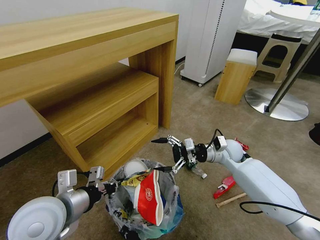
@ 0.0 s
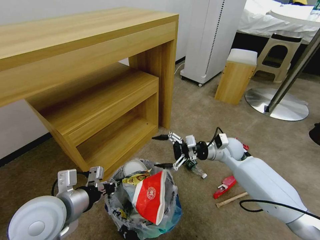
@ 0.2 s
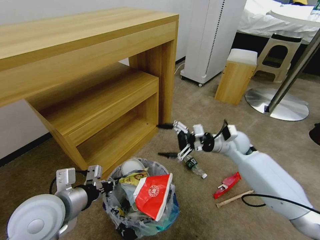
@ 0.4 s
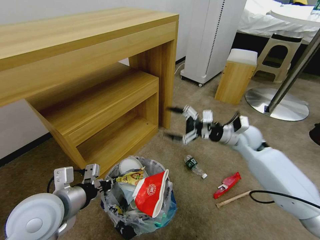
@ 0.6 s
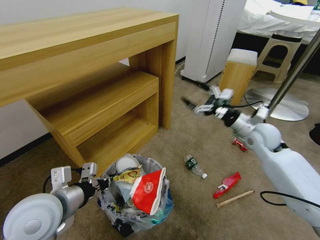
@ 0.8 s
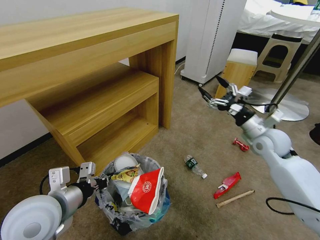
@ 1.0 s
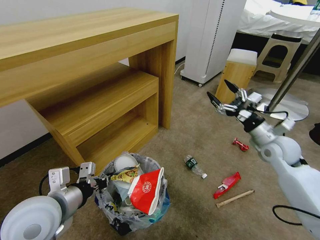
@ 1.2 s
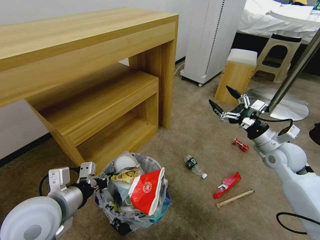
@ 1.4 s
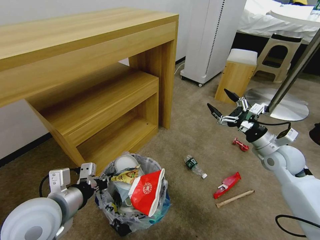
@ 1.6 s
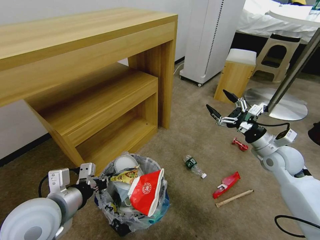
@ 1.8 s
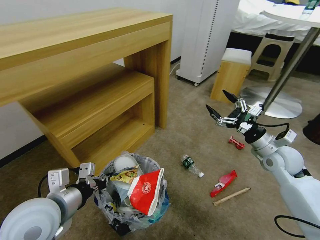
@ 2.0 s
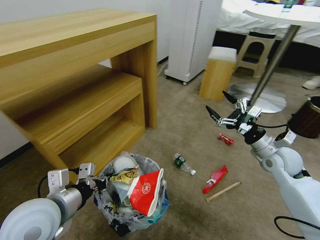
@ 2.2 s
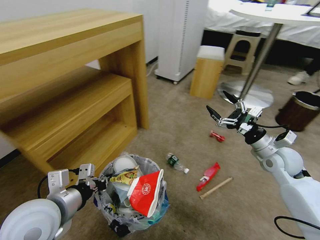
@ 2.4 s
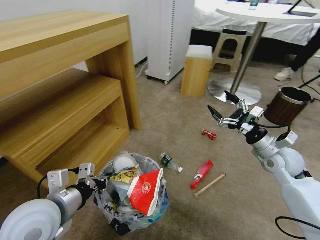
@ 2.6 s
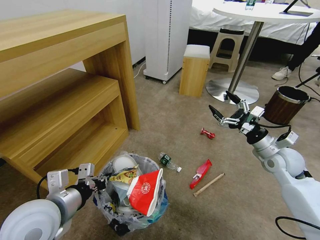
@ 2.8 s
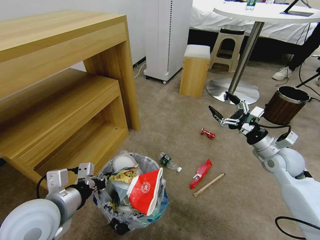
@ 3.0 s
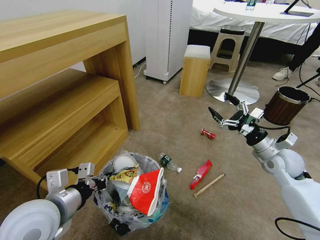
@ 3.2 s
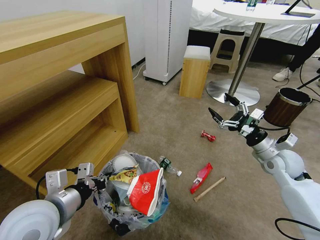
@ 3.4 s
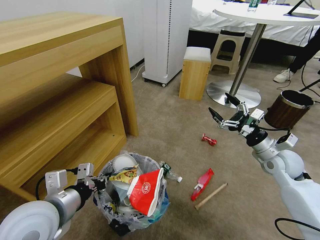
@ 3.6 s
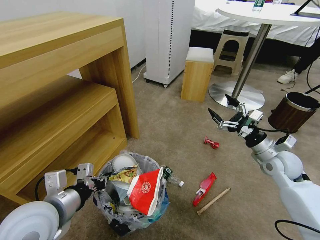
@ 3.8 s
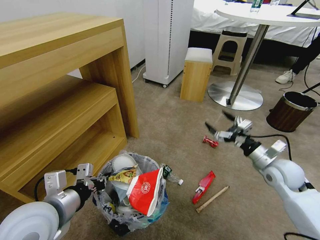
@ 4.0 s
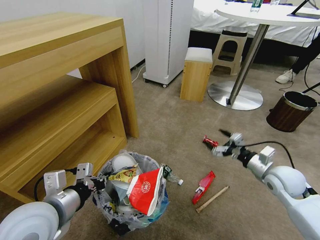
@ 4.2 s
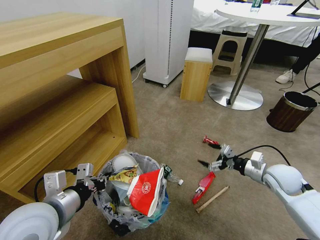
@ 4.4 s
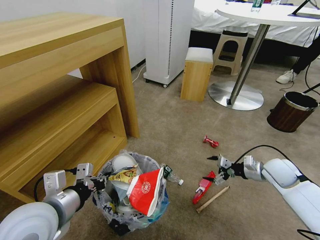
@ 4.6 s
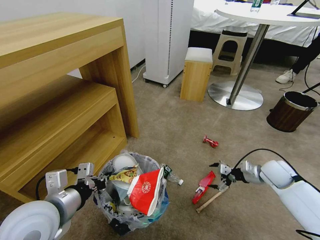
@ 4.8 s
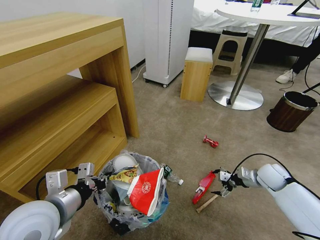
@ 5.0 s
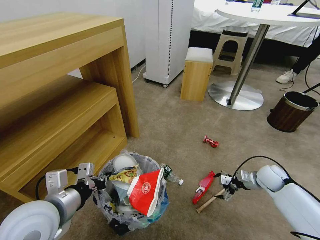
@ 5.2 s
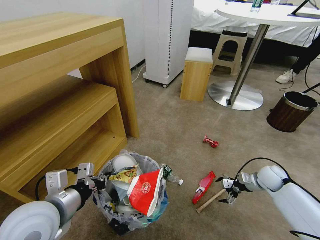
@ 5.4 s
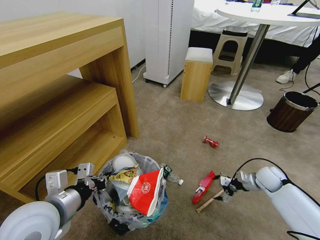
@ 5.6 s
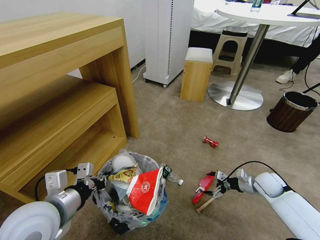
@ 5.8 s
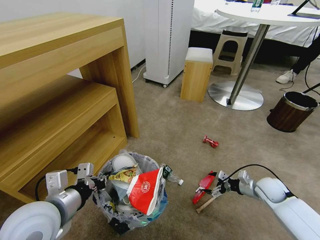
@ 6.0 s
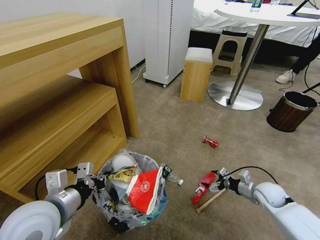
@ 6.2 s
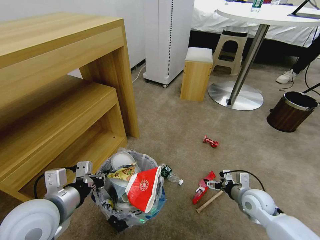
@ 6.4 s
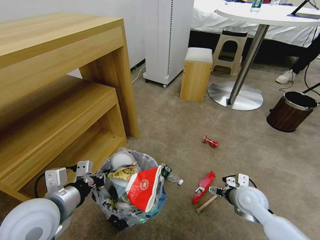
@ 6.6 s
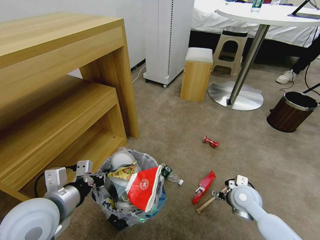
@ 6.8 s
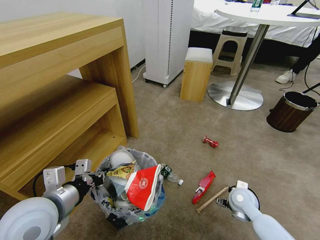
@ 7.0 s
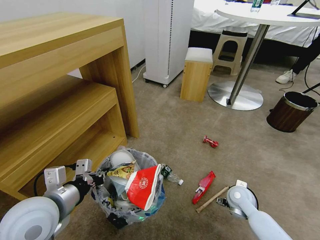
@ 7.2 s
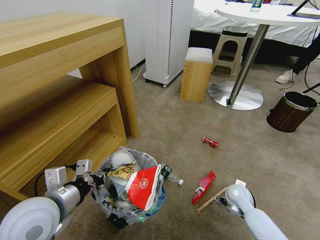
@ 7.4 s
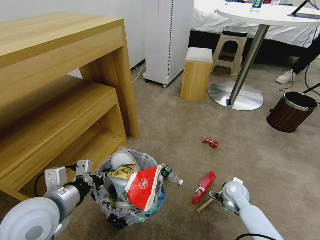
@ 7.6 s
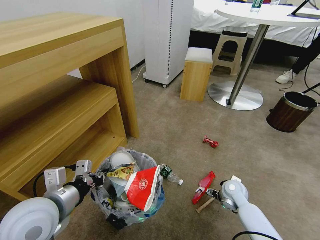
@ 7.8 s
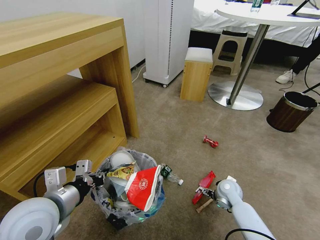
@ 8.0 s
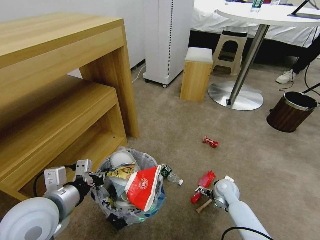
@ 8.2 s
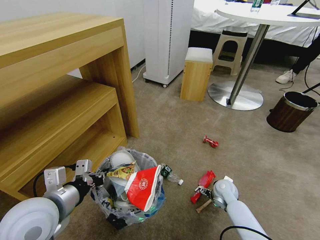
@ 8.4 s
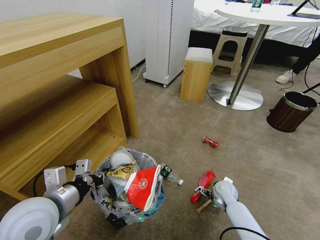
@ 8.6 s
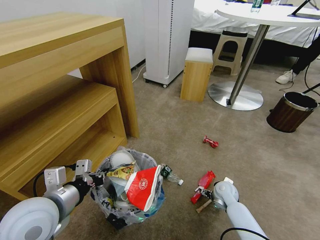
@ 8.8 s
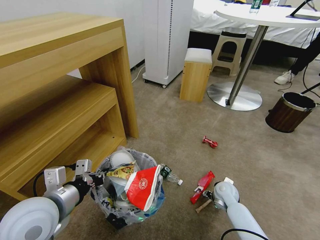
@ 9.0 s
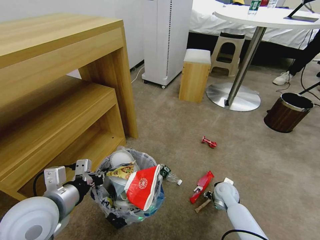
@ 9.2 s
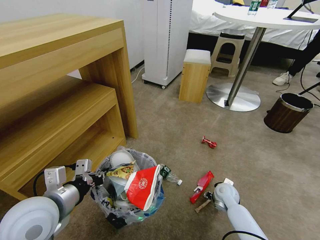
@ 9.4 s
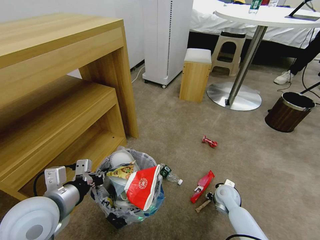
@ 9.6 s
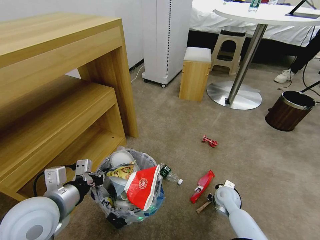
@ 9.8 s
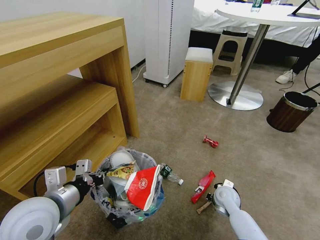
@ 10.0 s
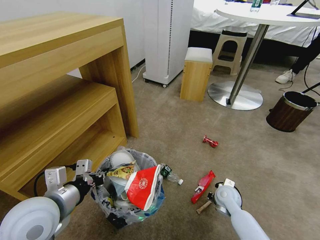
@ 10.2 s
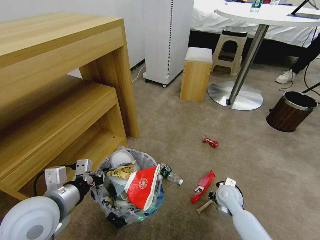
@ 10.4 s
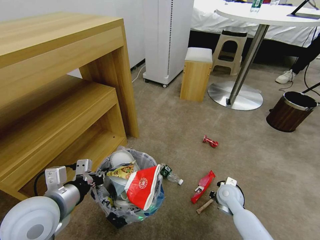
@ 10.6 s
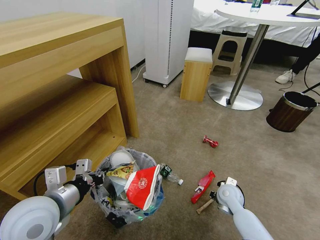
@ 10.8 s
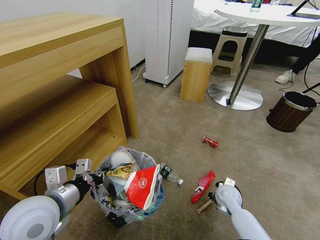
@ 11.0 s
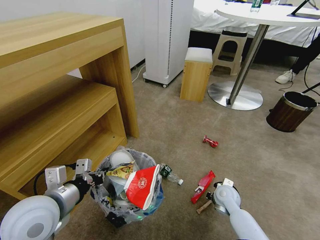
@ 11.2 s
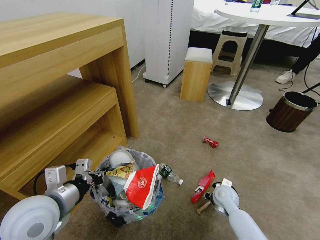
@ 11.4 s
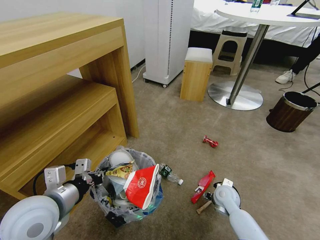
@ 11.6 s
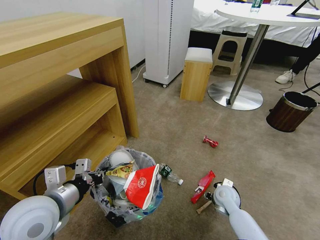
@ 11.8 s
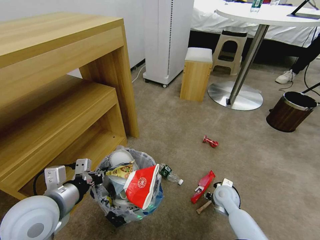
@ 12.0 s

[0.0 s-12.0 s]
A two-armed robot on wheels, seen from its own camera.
Task of the whole recording: Pick up the trash bin and place the garbage on the floor into it.
0.0 to 1.6 s: The right gripper moves to the right, backward and upward, roughly 15 cm.
3.0 to 4.4 s: The right gripper heads downward, covering about 5 cm.
4.4 to 6.0 s: The right gripper travels downward by about 10 cm.
6.0 to 7.6 s: The right gripper is displaced to the left by roughly 15 cm.
7.6 to 9.0 s: The grippers move only a little.
9.0 to 10.4 s: The right gripper closes up.
10.4 to 12.0 s: The right gripper opens.

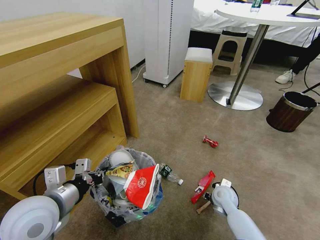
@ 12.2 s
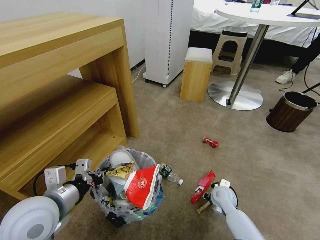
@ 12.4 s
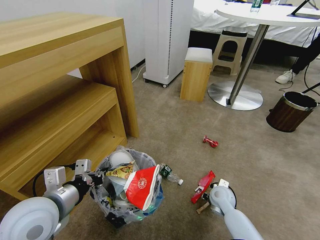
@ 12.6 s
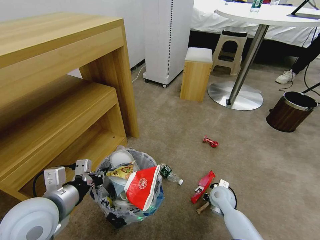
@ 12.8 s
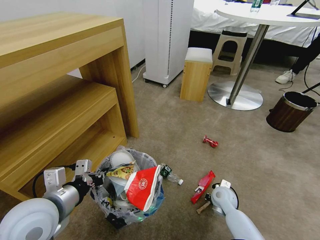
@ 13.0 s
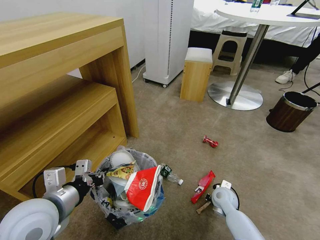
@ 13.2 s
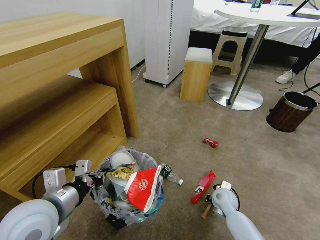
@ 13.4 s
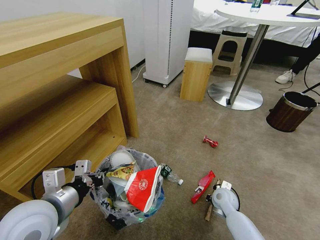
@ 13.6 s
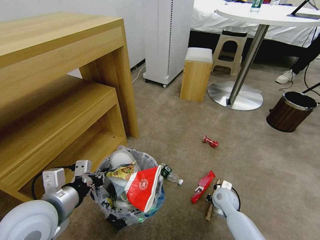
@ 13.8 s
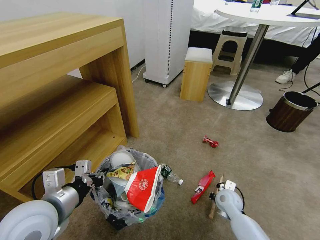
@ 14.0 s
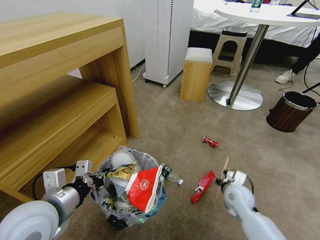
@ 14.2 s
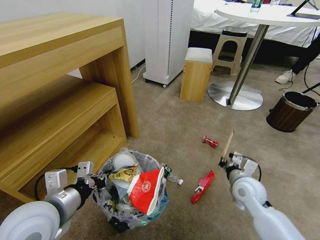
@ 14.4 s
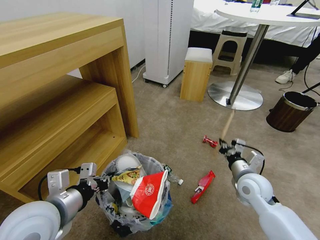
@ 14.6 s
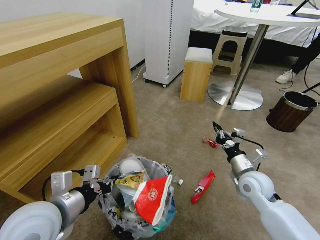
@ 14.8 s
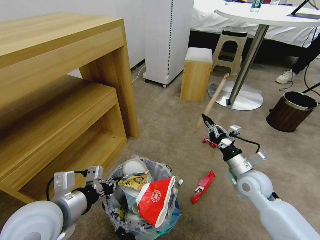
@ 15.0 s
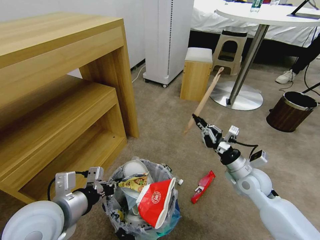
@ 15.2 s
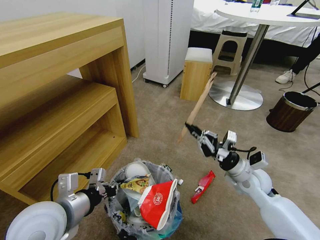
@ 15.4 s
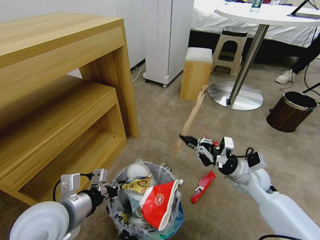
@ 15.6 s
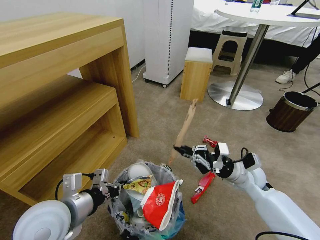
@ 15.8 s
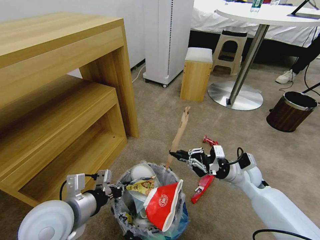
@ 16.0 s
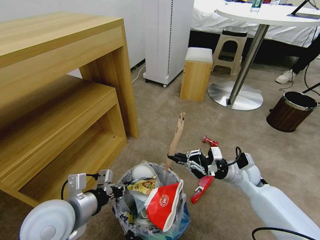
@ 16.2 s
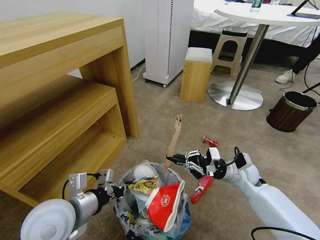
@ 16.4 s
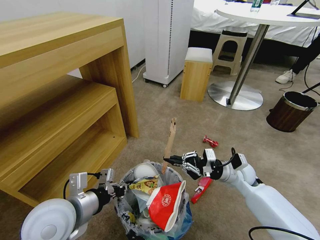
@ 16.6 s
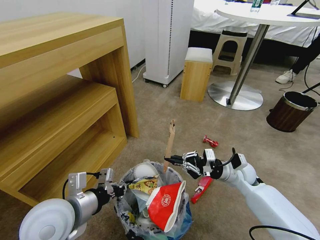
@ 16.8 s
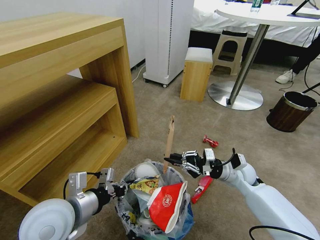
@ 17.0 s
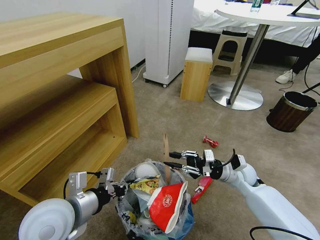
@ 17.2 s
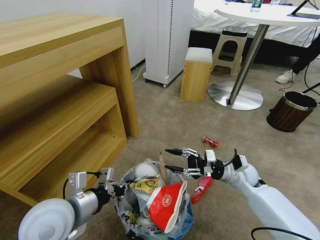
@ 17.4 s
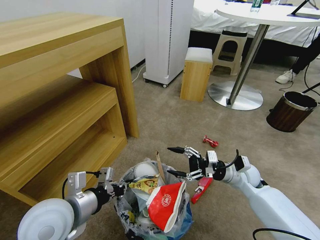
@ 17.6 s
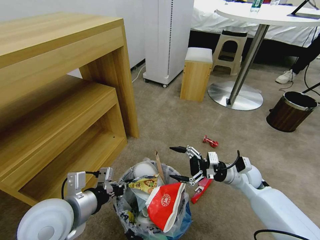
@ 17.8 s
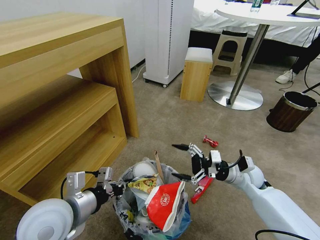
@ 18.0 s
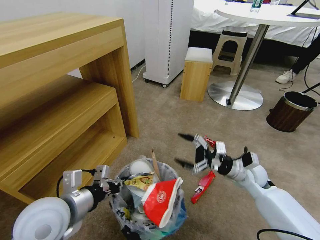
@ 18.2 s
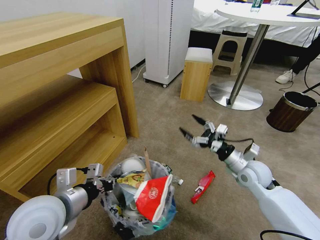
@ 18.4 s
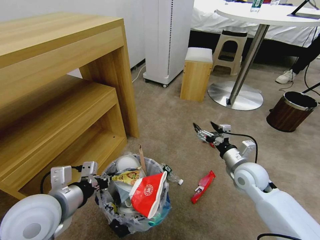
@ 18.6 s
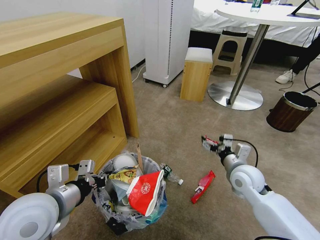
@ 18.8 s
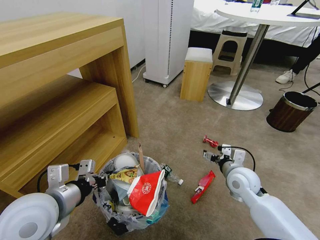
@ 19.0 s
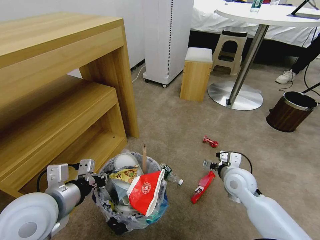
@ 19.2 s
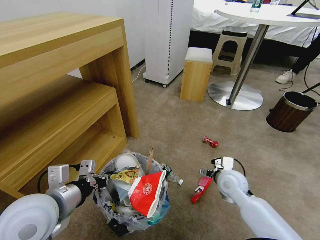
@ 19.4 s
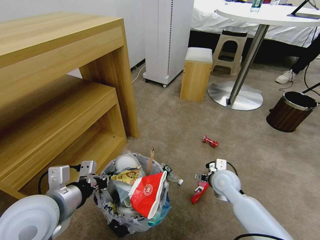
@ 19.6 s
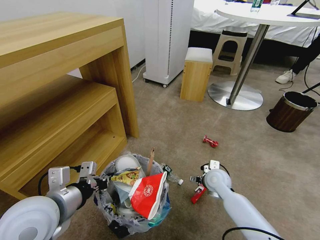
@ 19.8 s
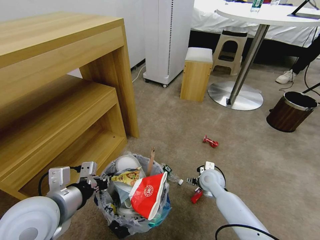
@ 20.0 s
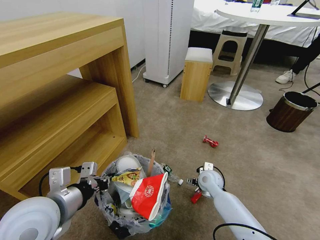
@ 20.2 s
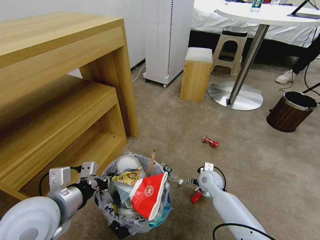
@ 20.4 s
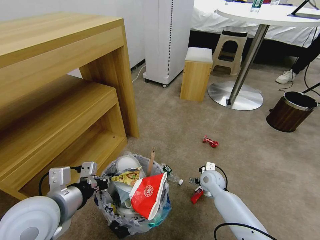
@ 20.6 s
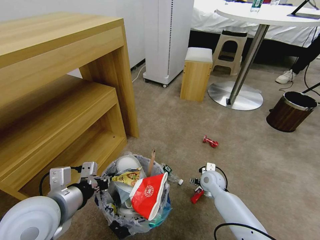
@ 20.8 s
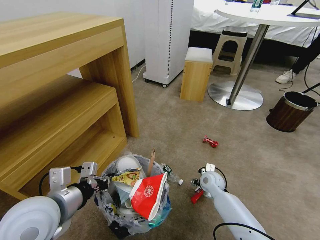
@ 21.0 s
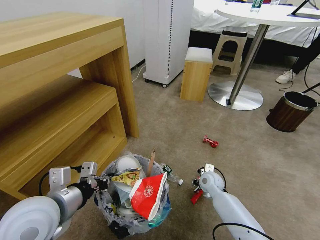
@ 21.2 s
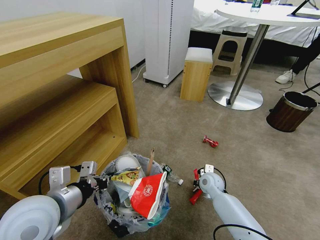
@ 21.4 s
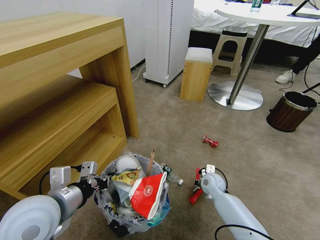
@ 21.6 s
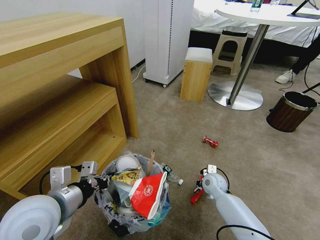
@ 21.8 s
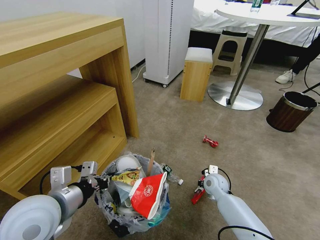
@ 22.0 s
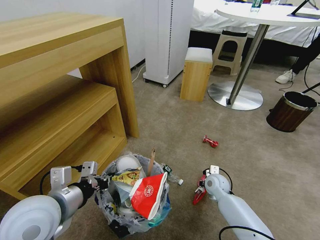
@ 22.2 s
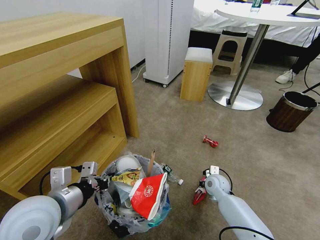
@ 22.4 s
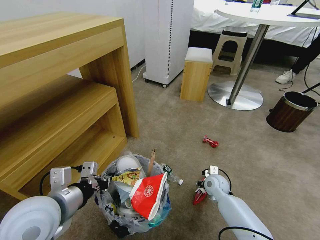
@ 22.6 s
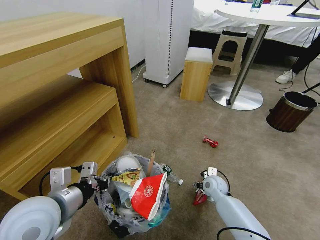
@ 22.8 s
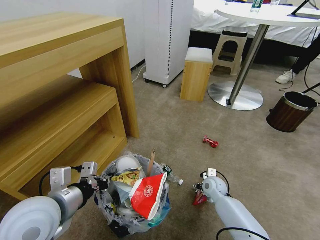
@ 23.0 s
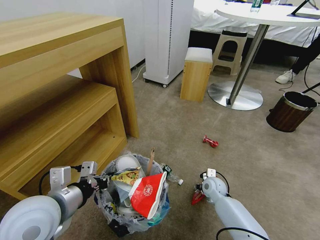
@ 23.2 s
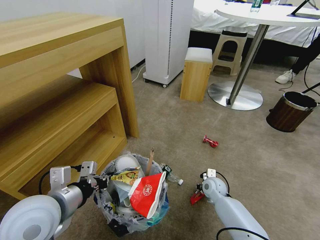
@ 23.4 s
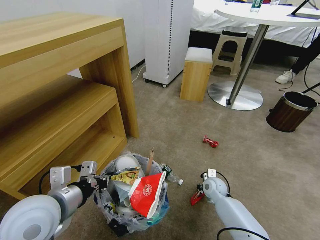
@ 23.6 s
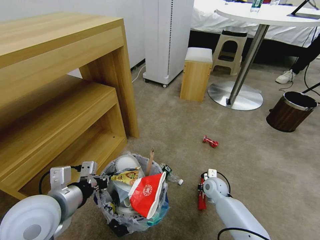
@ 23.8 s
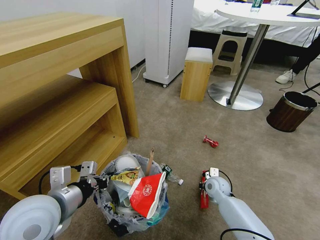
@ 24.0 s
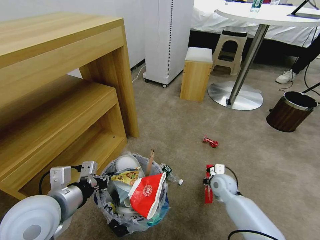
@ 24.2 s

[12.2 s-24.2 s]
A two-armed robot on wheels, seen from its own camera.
Task of the whole recording: Pick up the trash bin and place the garbage on the floor into it.
12.2 to 13.8 s: The right gripper closes its fingers.
13.8 to 15.2 s: The right gripper travels upward by some 15 cm.
15.2 to 16.6 s: The right gripper changes place by approximately 5 cm.
16.6 to 18.2 s: The right gripper opens its fingers.
18.2 to 19.8 s: The right gripper goes about 10 cm to the left and downward.
19.8 to 21.2 s: The right gripper heads downward, covering approximately 5 cm, and closes.
21.2 to 22.6 s: The right gripper closes, then reopens.
22.6 to 24.2 s: The right gripper closes its fingers.
